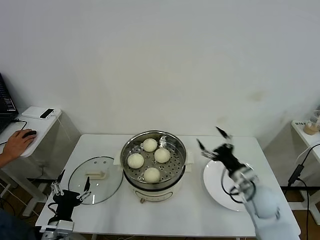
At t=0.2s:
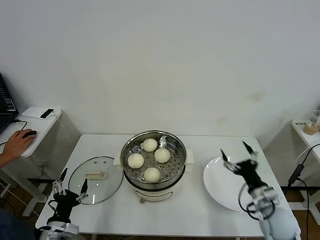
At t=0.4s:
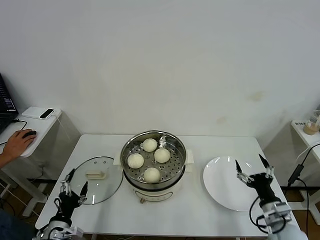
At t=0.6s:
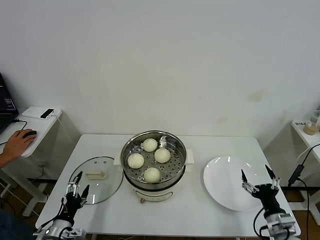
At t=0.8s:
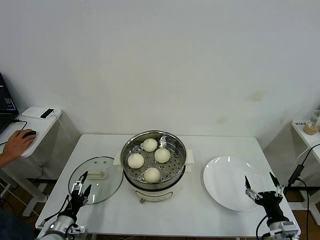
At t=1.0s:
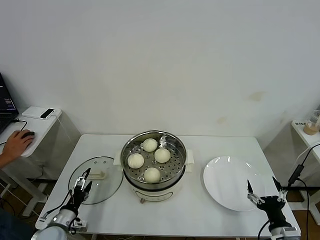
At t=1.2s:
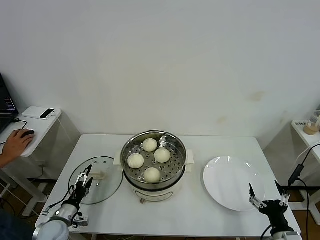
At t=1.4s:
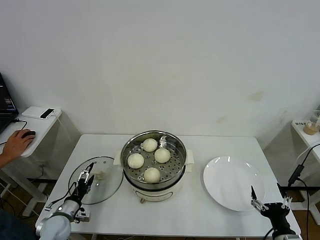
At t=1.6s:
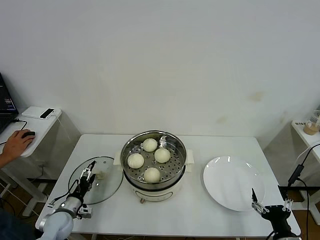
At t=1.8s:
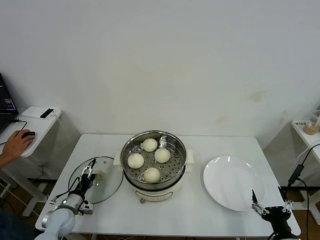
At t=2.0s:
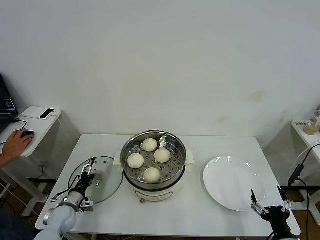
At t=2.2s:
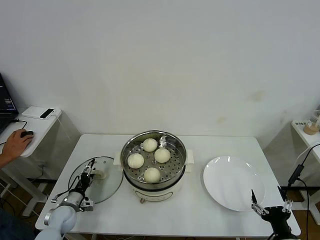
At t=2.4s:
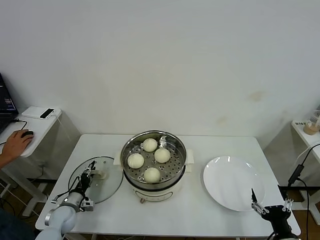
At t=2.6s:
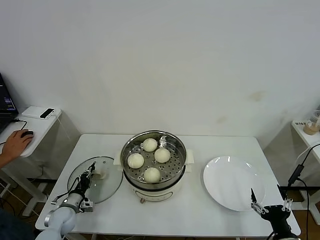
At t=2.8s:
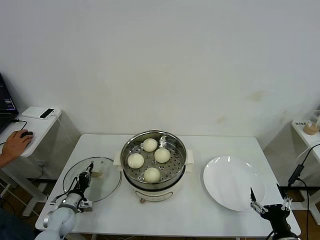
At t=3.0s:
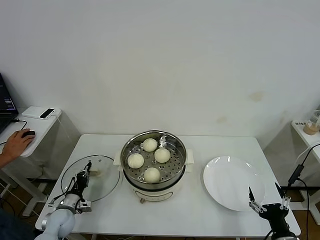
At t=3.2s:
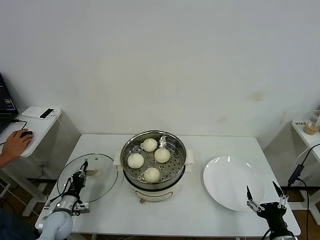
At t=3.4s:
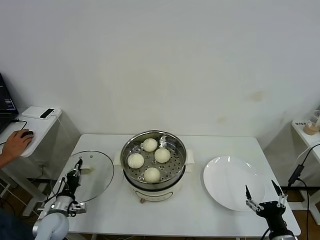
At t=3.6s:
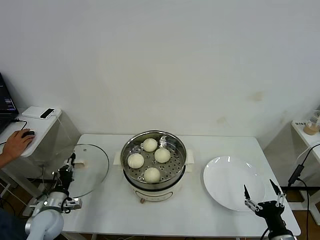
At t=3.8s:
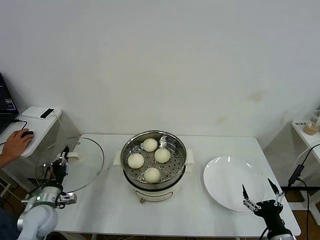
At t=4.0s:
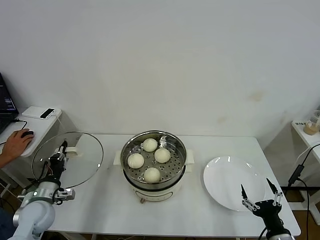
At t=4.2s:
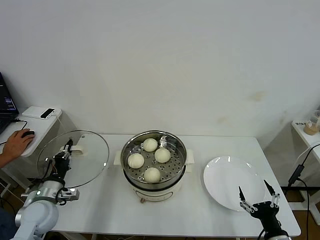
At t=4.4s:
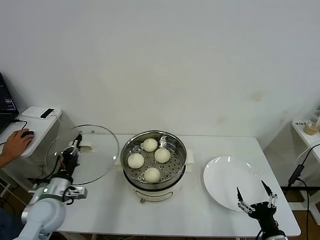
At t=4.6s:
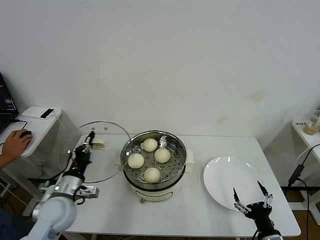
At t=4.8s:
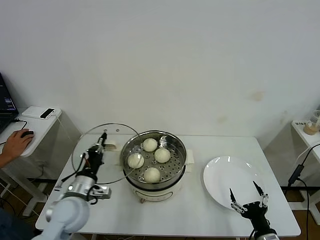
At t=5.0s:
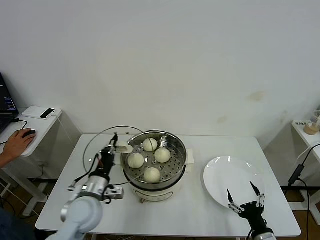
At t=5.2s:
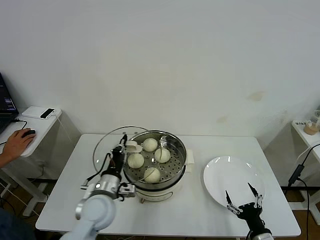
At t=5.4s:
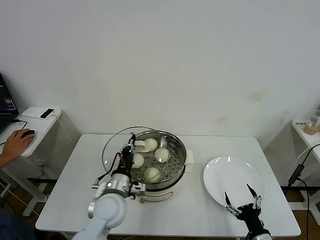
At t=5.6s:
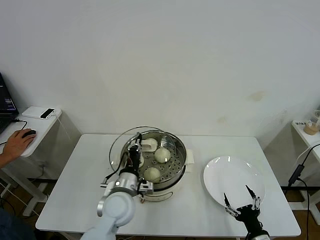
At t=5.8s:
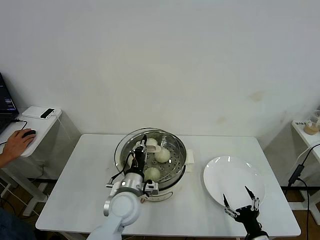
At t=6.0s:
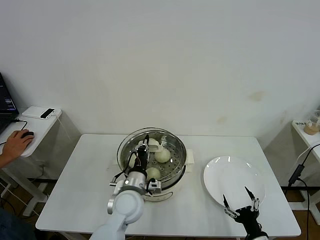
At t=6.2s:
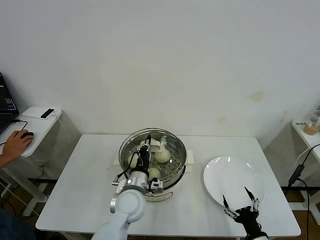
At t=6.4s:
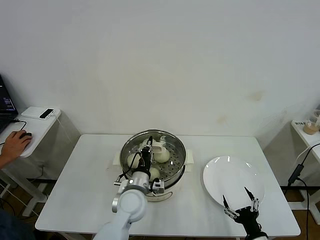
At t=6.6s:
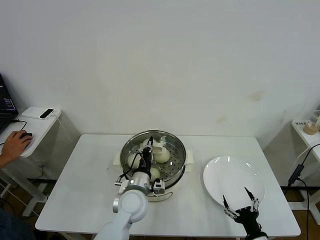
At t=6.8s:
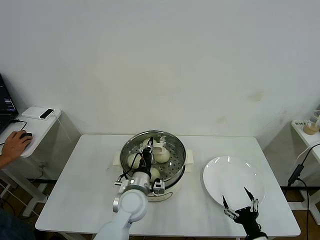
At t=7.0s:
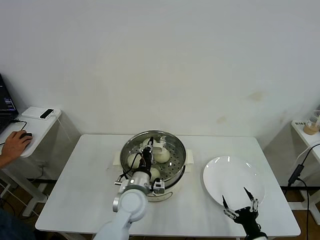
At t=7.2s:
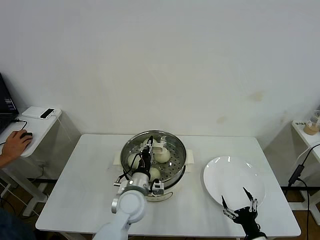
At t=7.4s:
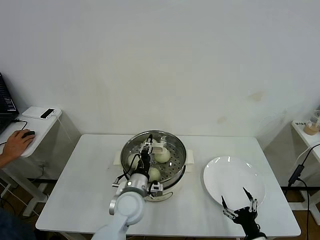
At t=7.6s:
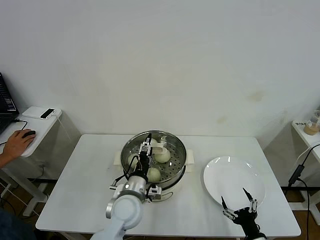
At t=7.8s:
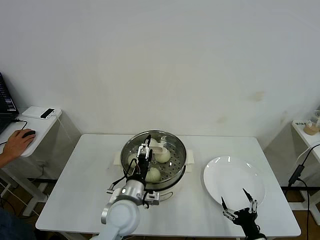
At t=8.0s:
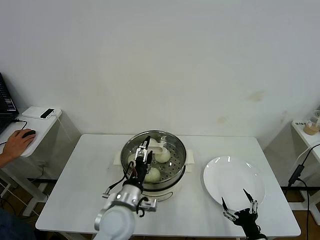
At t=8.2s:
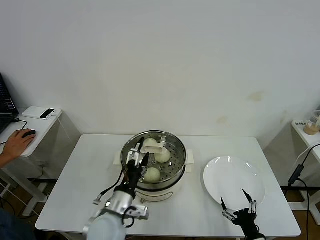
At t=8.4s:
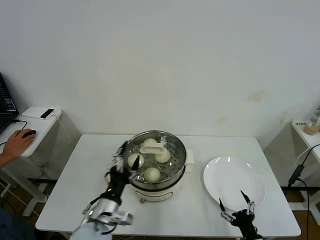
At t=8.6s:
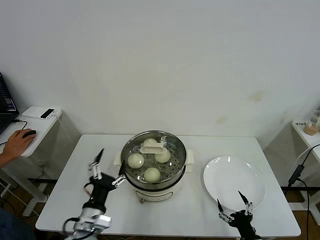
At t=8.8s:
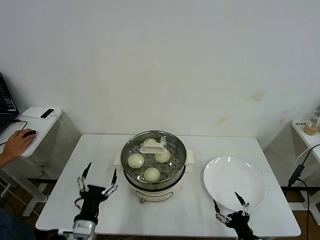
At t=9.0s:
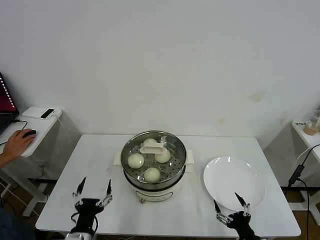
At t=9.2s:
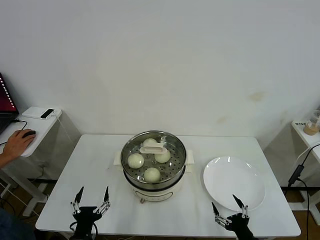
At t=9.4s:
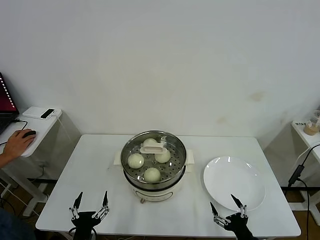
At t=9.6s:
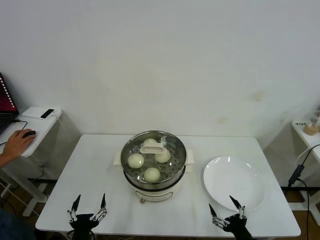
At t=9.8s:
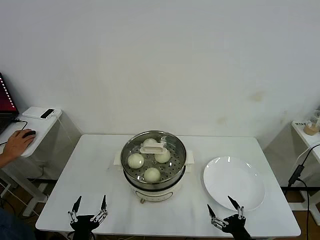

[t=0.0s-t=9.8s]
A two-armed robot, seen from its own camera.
Task of the whole recording: take steamed baozi put them in steamer then cover it.
Step, t=0.0s to t=2.8s: Grasp the pot lid with left gripper.
Step, t=3.0s to t=7.2s: Place the pot lid on the steamer with left gripper.
t=0.0s to t=1.4s: The right gripper shifts approximately 25 cm backward, downward and to the right; the left gripper moves downward, forward and to the left, about 20 cm.
t=1.4s to t=2.8s: The left gripper shifts by about 5 cm, and closes up.
t=2.8s to t=4.2s: The left gripper heads upward, covering roughly 15 cm.
t=4.2s to t=5.6s: The right gripper ends up approximately 5 cm from where it was. Meanwhile the left gripper moves to the right, approximately 25 cm.
t=5.6s to t=7.0s: The left gripper shifts by roughly 5 cm.
t=7.0s to t=8.4s: The left gripper travels backward and to the left by about 15 cm, and opens.
t=8.4s to t=9.8s: The left gripper heads backward, downward and to the left, covering roughly 15 cm.
